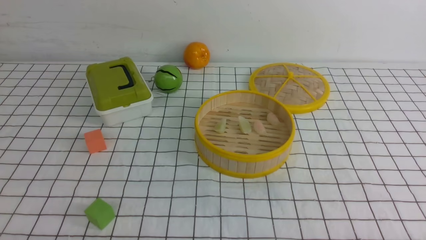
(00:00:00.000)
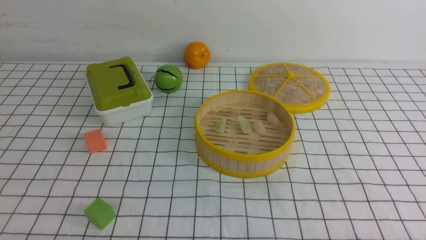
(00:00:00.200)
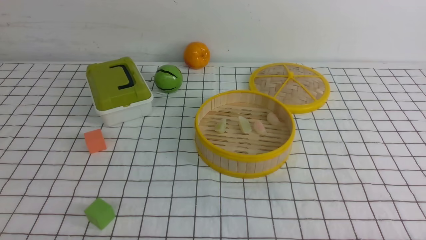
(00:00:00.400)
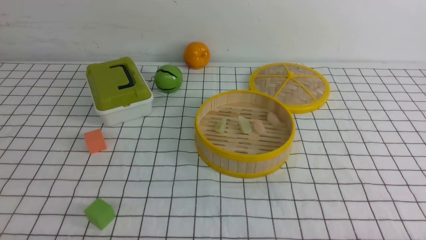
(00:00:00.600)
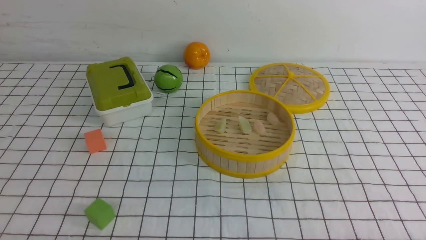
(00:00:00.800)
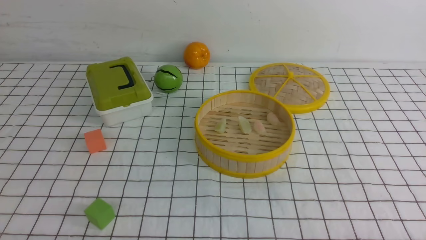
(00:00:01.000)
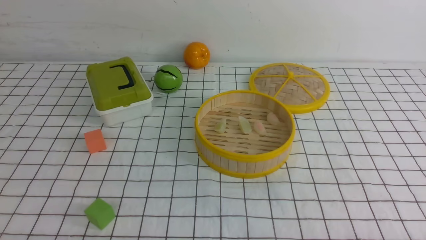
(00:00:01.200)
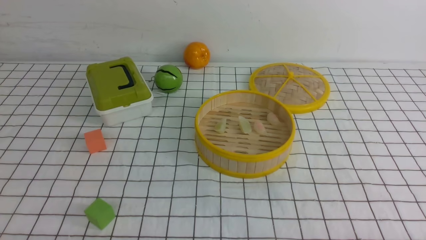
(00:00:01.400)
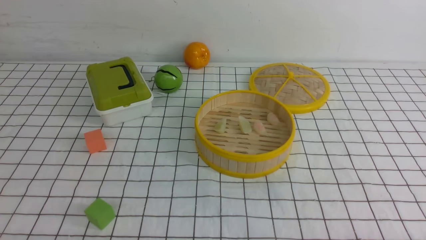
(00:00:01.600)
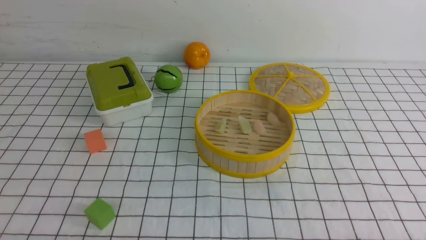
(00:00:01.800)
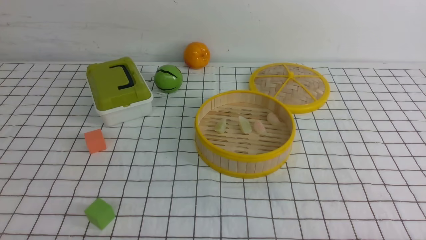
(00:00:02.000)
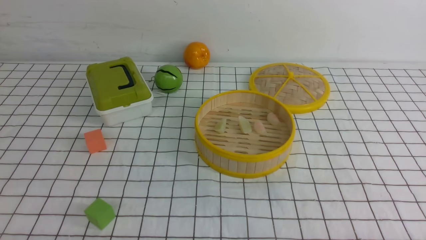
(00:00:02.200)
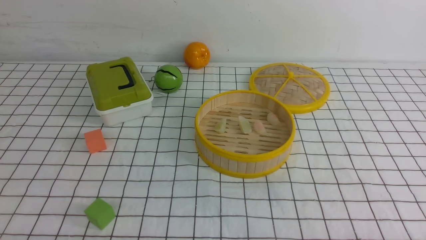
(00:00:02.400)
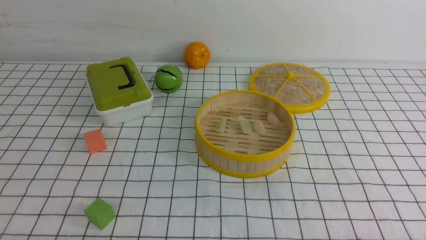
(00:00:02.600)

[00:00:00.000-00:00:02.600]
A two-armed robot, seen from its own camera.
Task of the whole recording: put the dumplings into the steamer on the table with the white tablecloth.
00:00:00.000 to 00:00:02.600: The two grippers keep their place.
